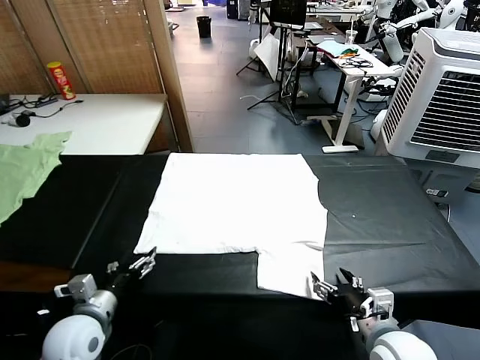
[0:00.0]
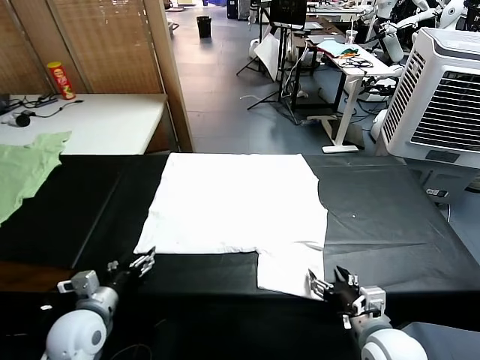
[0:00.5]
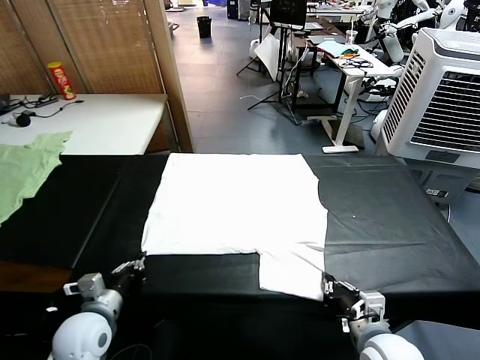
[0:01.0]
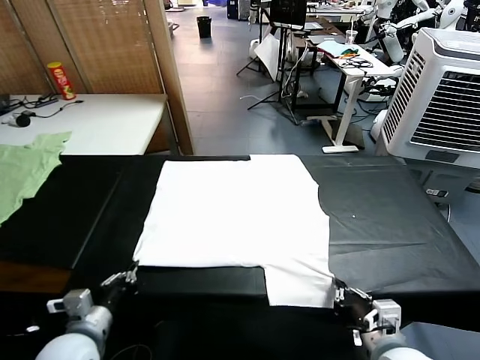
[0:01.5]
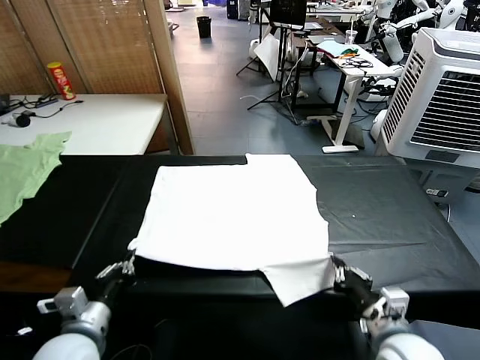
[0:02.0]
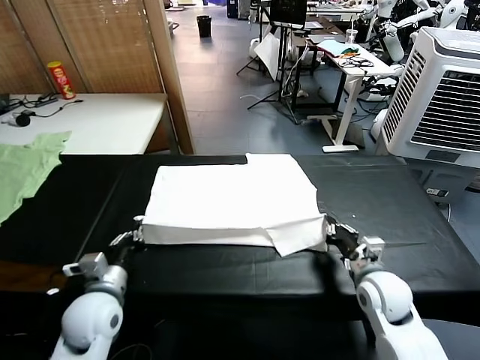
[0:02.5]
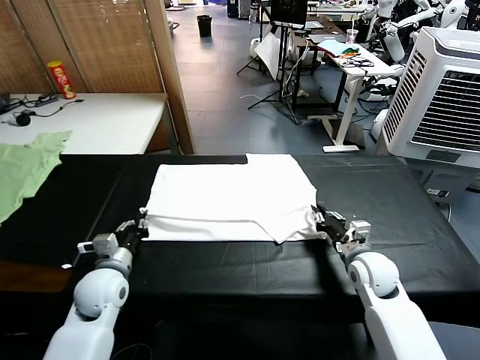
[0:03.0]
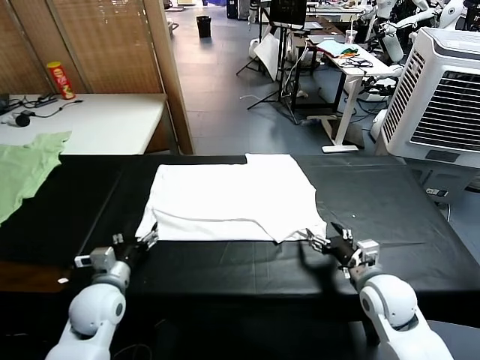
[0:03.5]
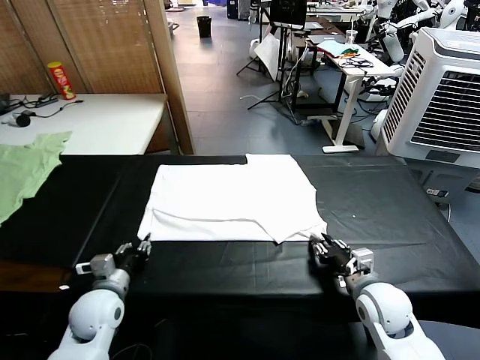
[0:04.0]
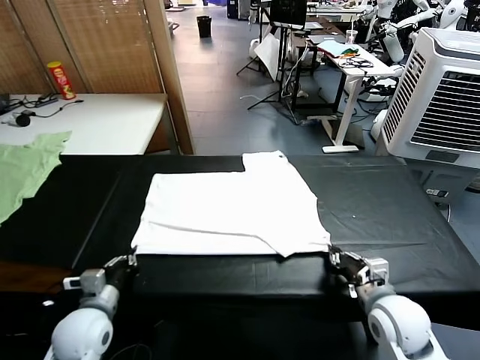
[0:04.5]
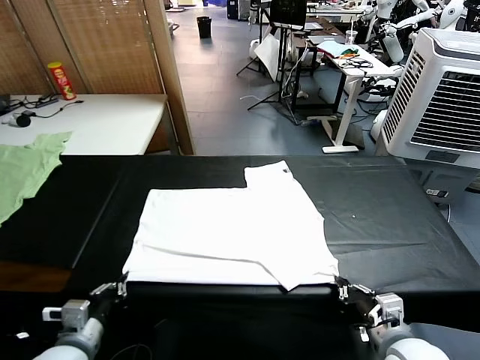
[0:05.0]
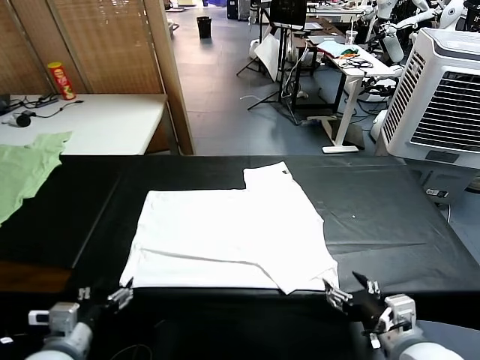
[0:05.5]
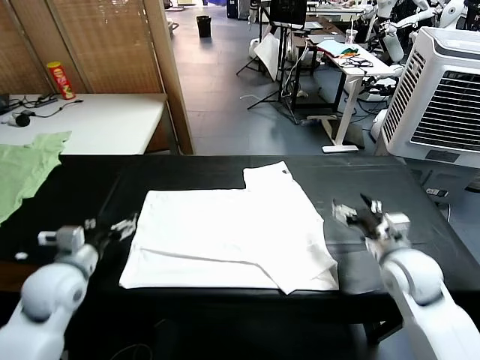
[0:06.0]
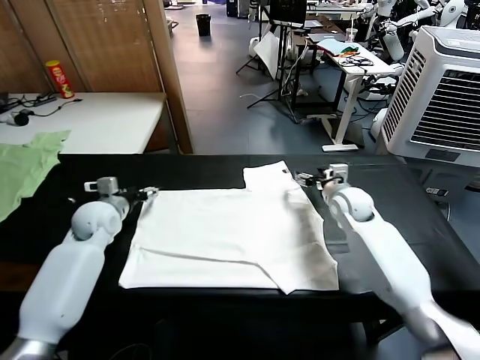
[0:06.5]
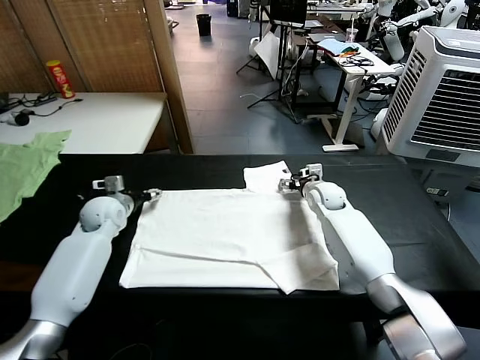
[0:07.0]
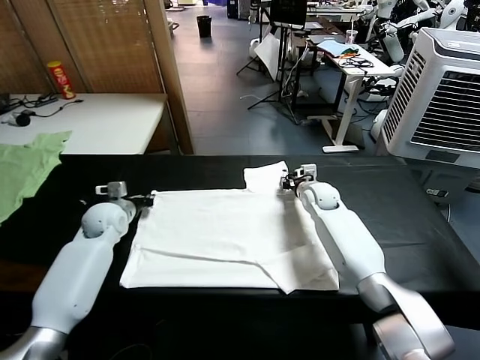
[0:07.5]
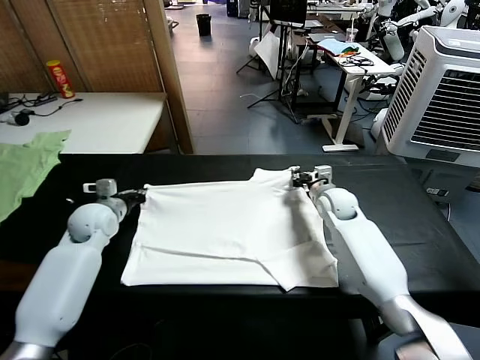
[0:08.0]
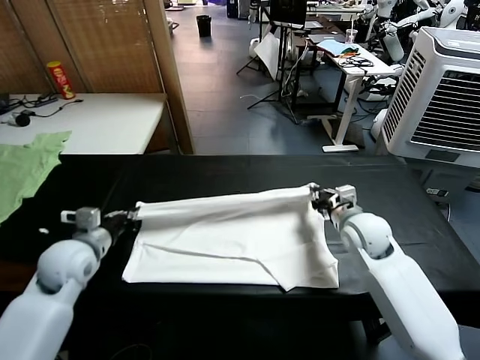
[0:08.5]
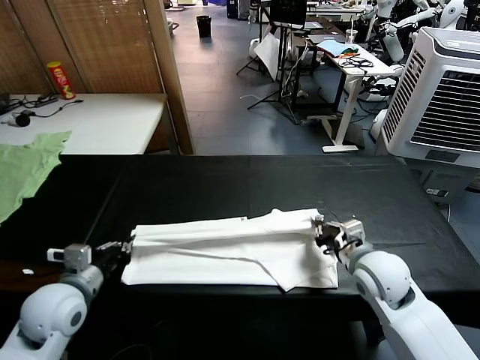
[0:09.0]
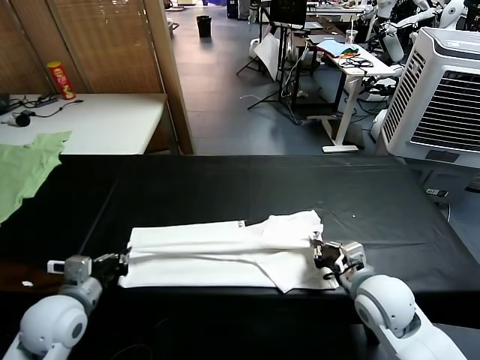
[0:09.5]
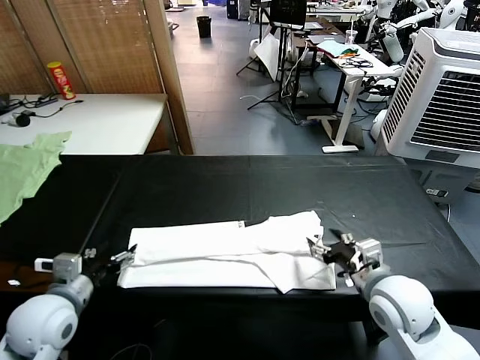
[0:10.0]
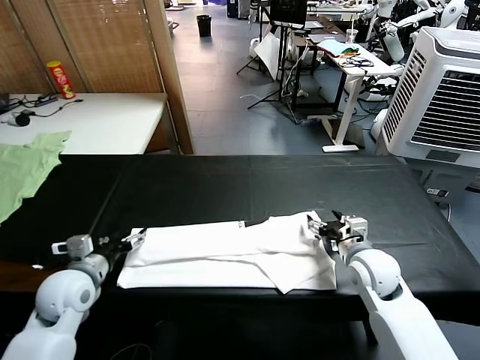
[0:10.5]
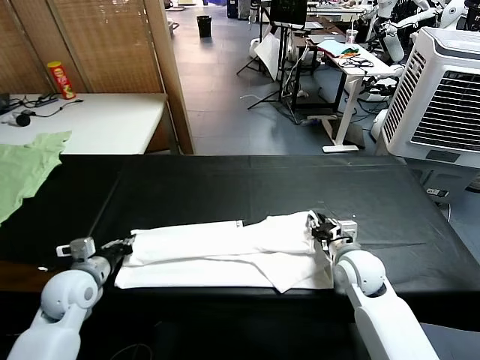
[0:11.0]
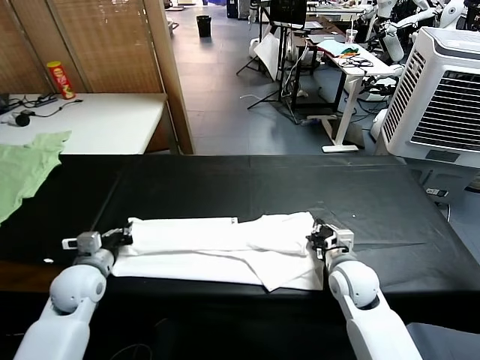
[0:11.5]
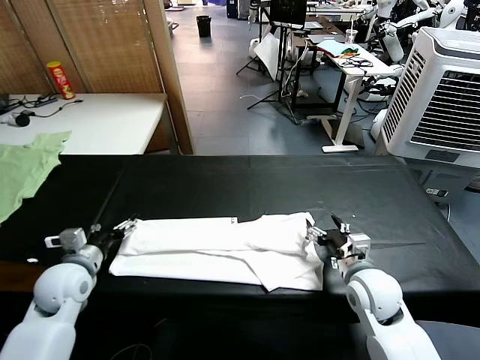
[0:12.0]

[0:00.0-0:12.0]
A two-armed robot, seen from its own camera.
Task of the whole recording: fold and organize the clothes.
Step, 0:00.0 to 0:01.0: use both grippers simultaneously to clamp the lower edge of the clothing fabric.
Step, 0:01.5 to 0:03.0: use both grippers to drag the lower edge of the fabric forward and fold it over the upper edge.
Step, 0:03.5 to 0:05.5: Drag the clothes downward with both gripper.
Step, 0:06.0 to 0:07.5: use both grippers simultaneously to clamp the upper edge of the clothing fabric.
Step, 0:08.0 to 0:09.5: use both grippers to drag the upper edge of the fabric backward and fold it over the lower edge.
0:02.0 to 0:04.0: The left gripper moves forward and downward, some 10 cm, and opens, then closes again, while the right gripper reaches some 10 cm forward, then returns, and opens, then closes again.
0:04.0 to 0:06.0: The right gripper travels forward and upward by approximately 15 cm, and opens its fingers. The left gripper is displaced upward by approximately 10 cm, reaches about 10 cm backward, then returns, and opens its fingers.
0:06.0 to 0:08.0: The right gripper goes roughly 5 cm forward, and closes; the left gripper heads forward, covering about 15 cm, and closes.
0:08.0 to 0:10.0: Both grippers travel together backward, some 20 cm. The right gripper opens up, while the left gripper opens.
0:10.0 to 0:12.0: The left gripper is displaced forward by about 10 cm, and closes, then opens again. The right gripper closes, then opens again.

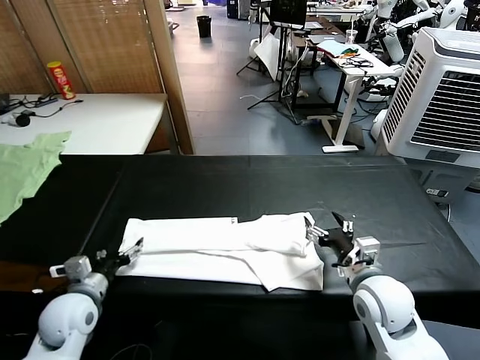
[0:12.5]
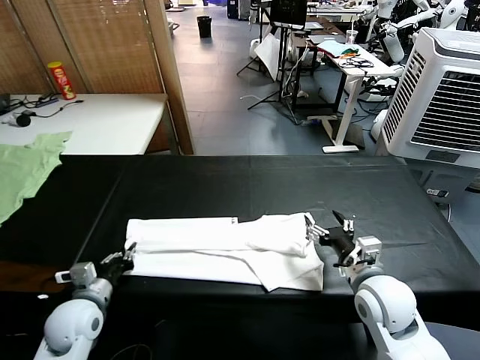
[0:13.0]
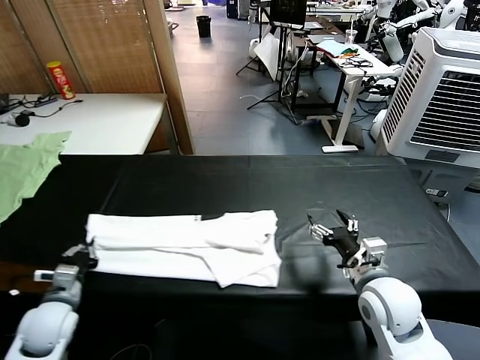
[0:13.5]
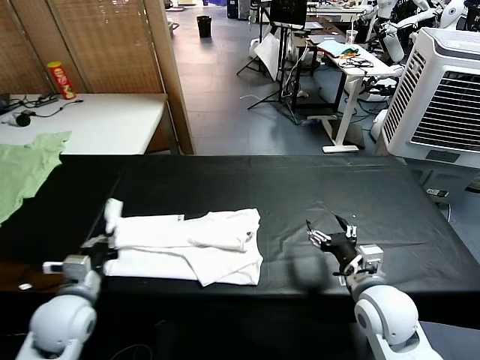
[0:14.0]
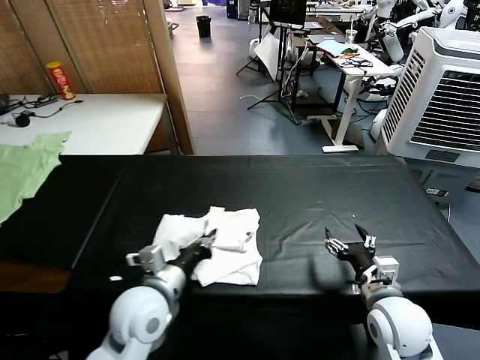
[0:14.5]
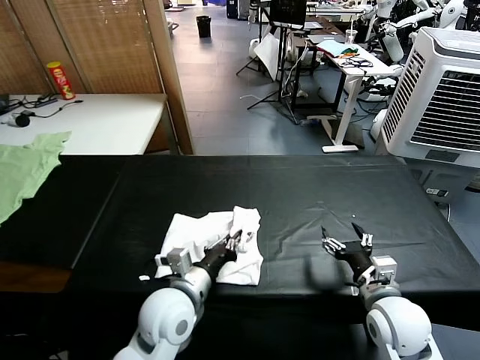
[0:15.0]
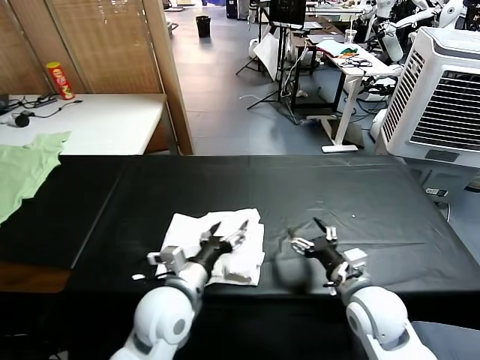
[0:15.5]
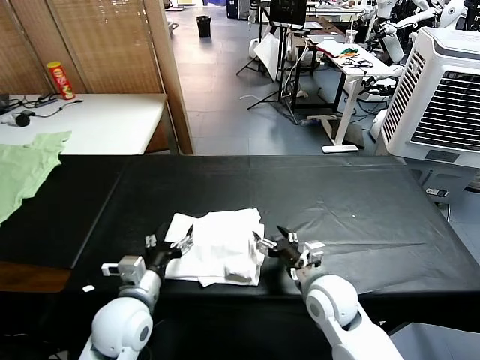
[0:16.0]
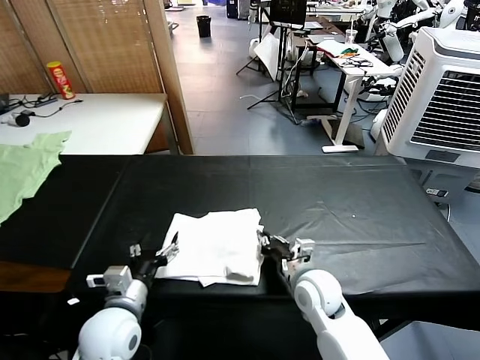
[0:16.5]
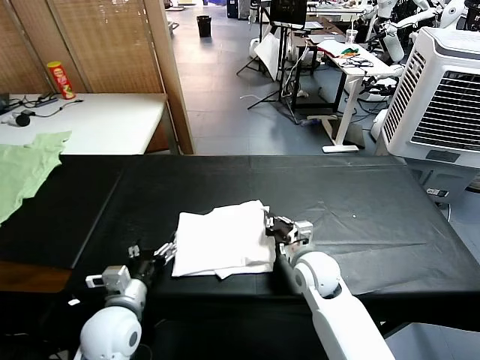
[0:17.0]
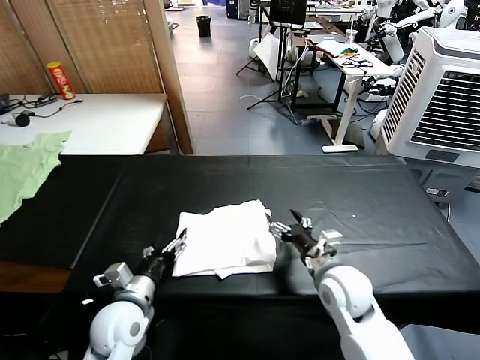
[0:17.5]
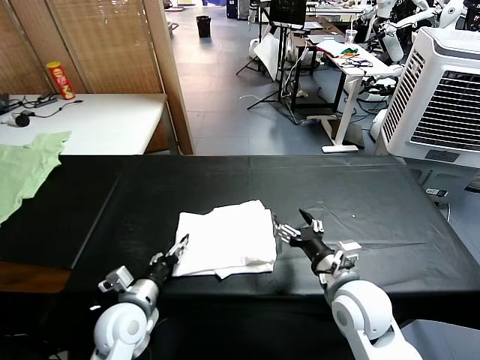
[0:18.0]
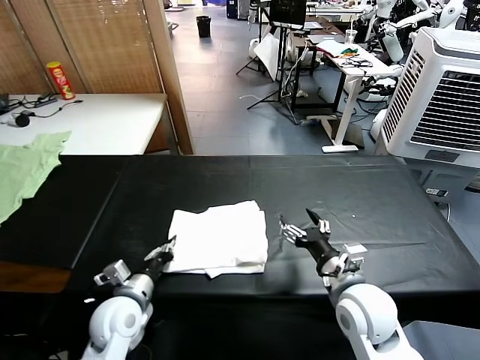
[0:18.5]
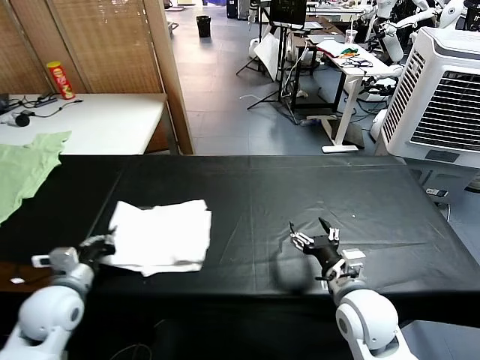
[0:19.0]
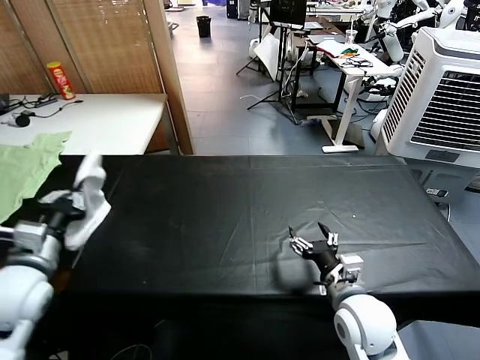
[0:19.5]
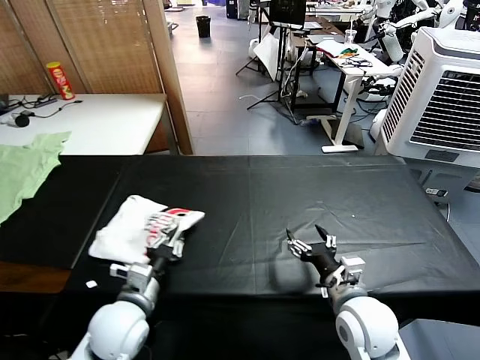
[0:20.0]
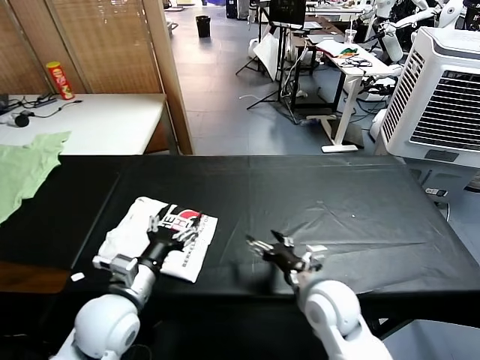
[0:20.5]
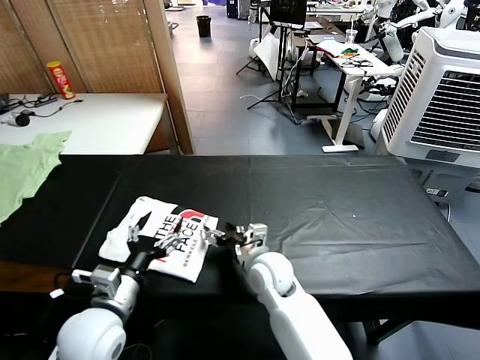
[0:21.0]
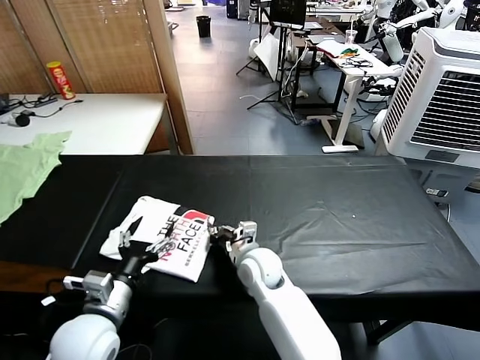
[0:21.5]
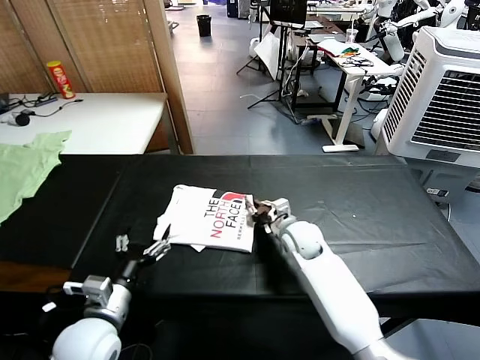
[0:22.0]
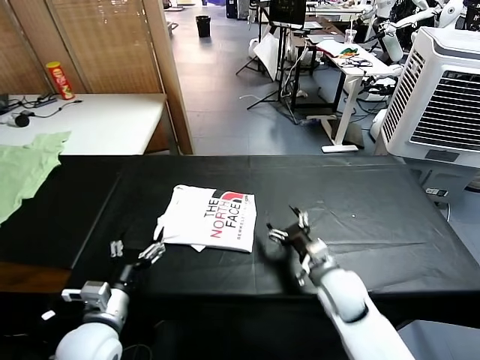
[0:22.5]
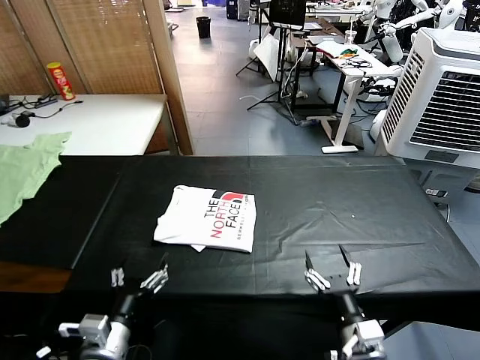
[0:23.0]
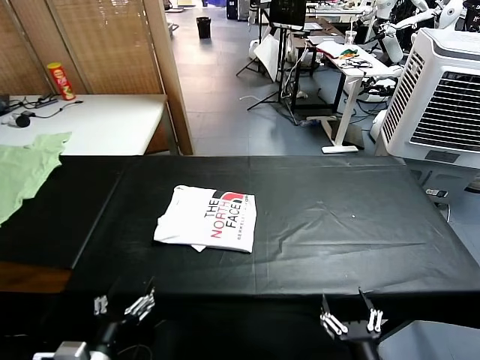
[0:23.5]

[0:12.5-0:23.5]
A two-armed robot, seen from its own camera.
Task of the whole recording: fold and organize the clothes.
Step, 0:13.5 to 0:15.0: use the left gripper to drag the left edge of the fabric to the left and folds it over the right edge.
Step, 0:15.5 to 0:20.0: Flip the folded clothes over with left gripper.
Step, 0:20.5 to 0:22.0: Drag the clothes to the center of the table.
0:12.5 to 0:14.5: The left gripper heads to the right, covering some 15 cm, and closes up.
0:14.5 to 0:16.0: The right gripper goes about 15 cm to the left and forward. The left gripper opens up.
0:16.0 to 0:18.0: The right gripper moves upward, some 5 cm, and closes, then opens again; the left gripper moves downward, roughly 5 cm.
0:18.0 to 0:20.0: The left gripper reaches about 15 cm upward, then returns, and closes its fingers.
0:20.0 to 0:21.5: The left gripper moves about 5 cm, and opens its fingers. Meanwhile the right gripper goes approximately 25 cm to the left and forward, and closes up.
0:21.5 to 0:23.5: The right gripper shifts about 35 cm backward and to the right, and opens. Meanwhile the left gripper heads backward, covering roughly 10 cm.

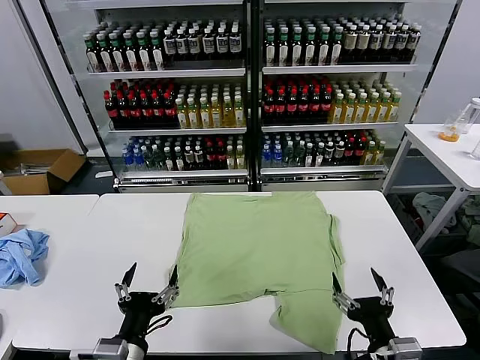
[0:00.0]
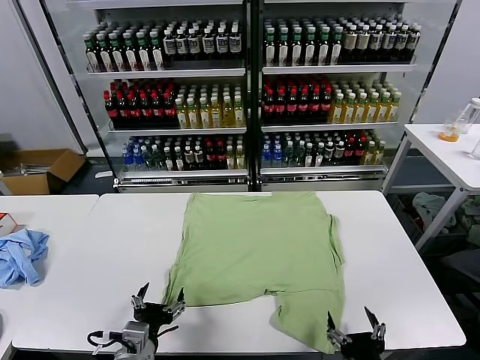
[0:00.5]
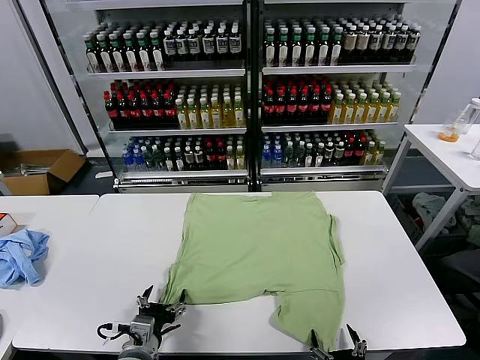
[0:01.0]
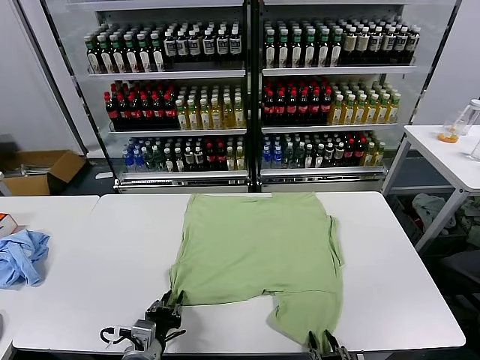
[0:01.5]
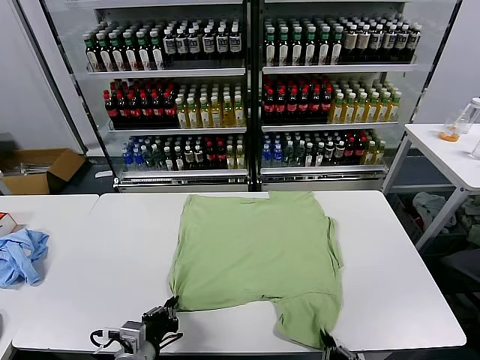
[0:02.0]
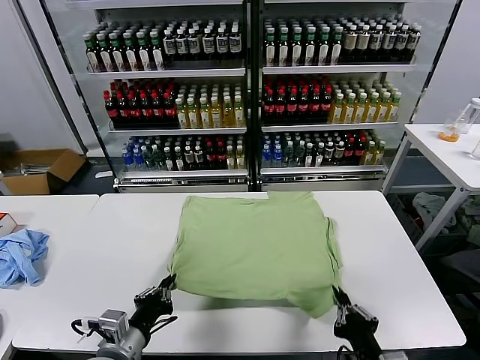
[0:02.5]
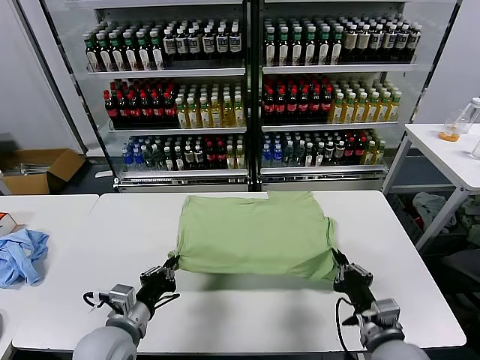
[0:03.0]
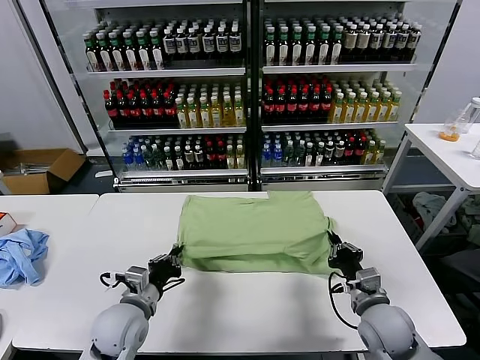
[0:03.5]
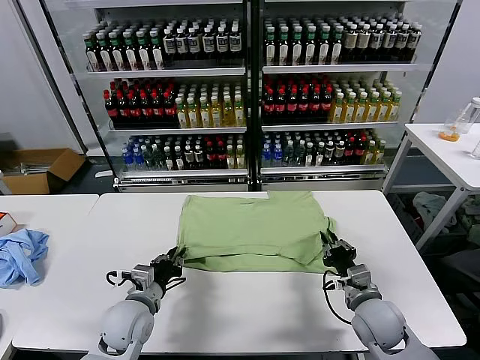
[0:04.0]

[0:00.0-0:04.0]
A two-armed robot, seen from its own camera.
Task of the whole recording: fold and organize the clothes.
Step, 0:00.0 to 0:01.5: use both grippers simultaneously to clamp the lower edge of the clothing fabric.
0:02.0 to 0:04.0: The right gripper is displaced forward by about 20 cm, and opens its fingers. The left gripper heads forward, covering about 10 cm.
